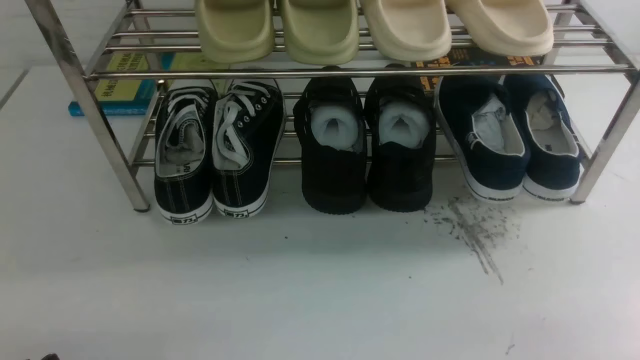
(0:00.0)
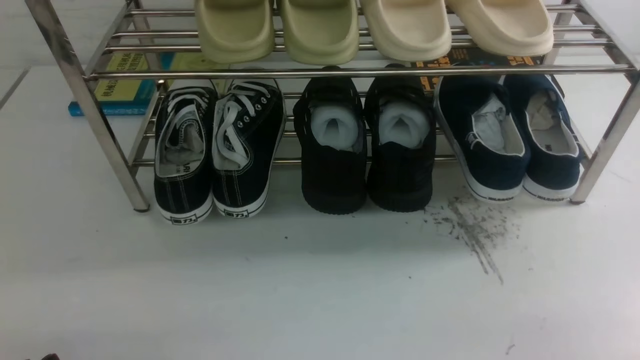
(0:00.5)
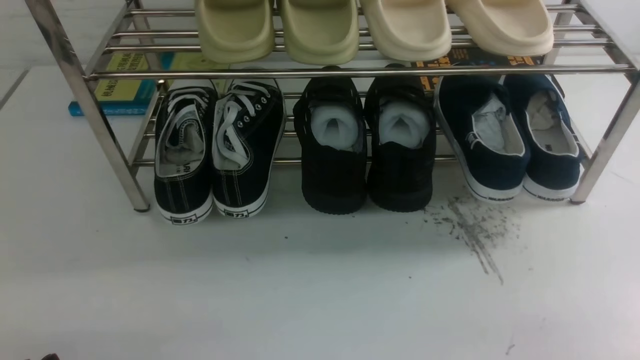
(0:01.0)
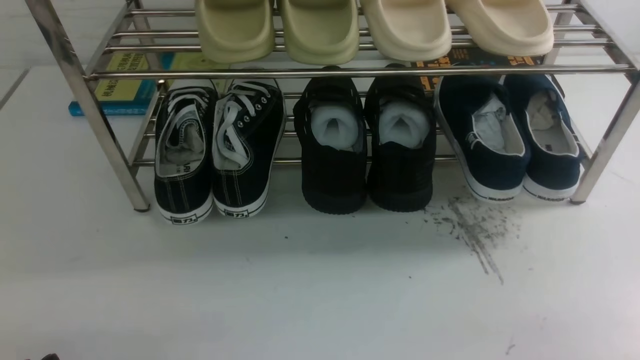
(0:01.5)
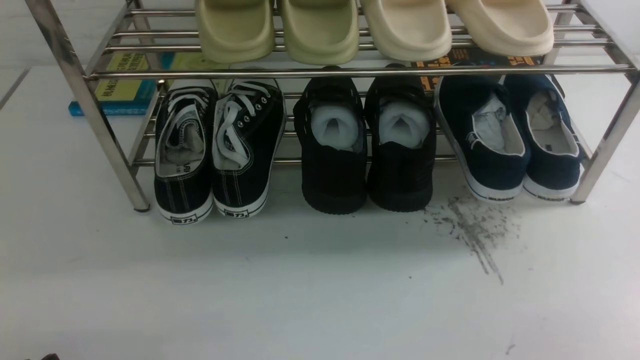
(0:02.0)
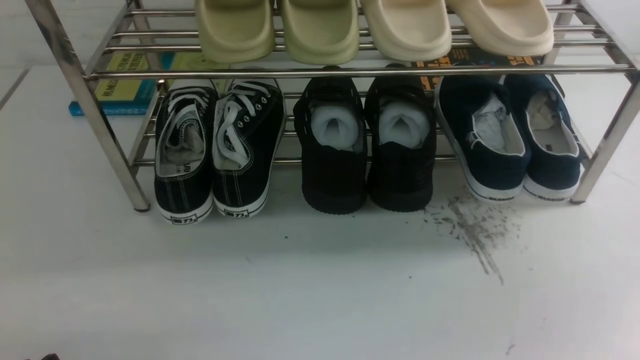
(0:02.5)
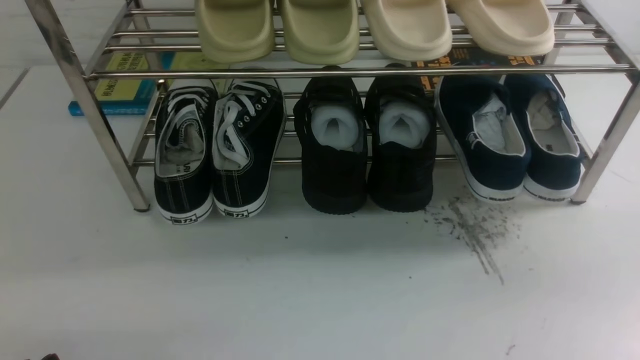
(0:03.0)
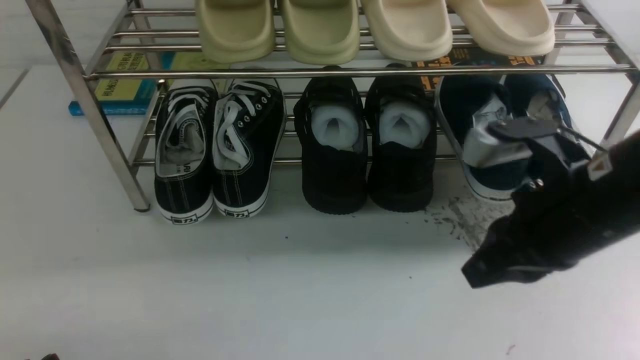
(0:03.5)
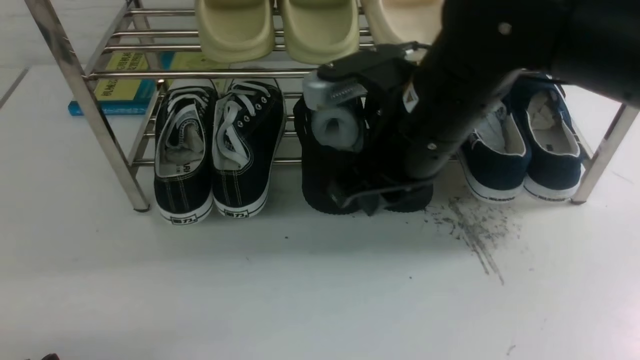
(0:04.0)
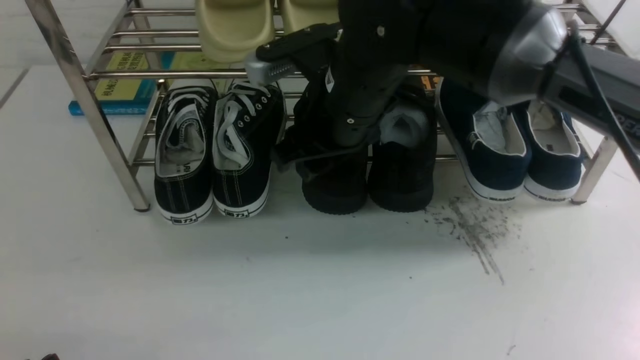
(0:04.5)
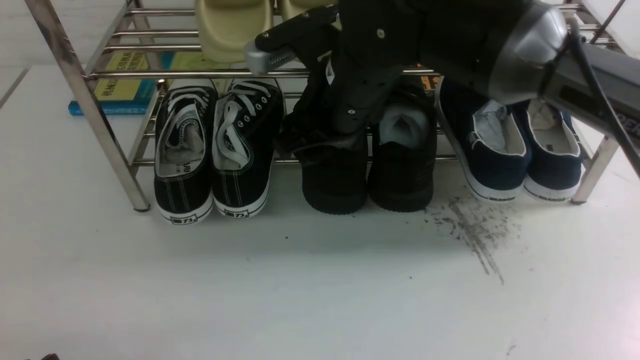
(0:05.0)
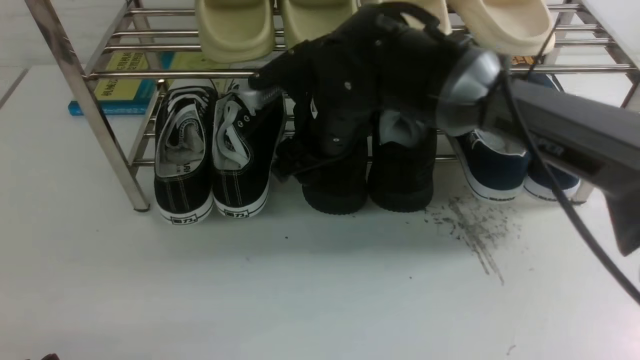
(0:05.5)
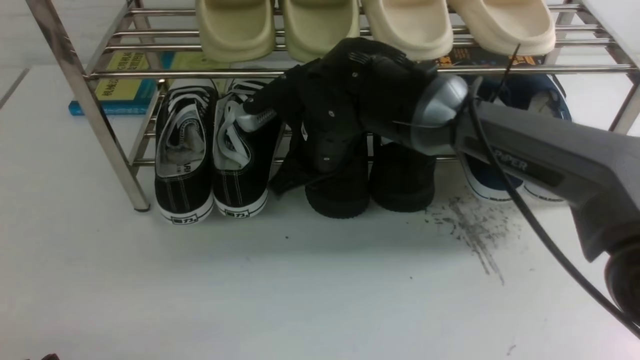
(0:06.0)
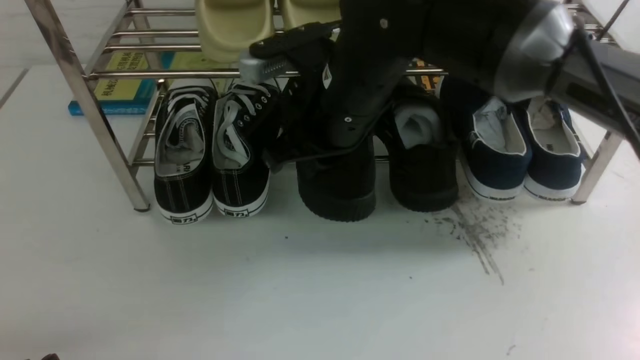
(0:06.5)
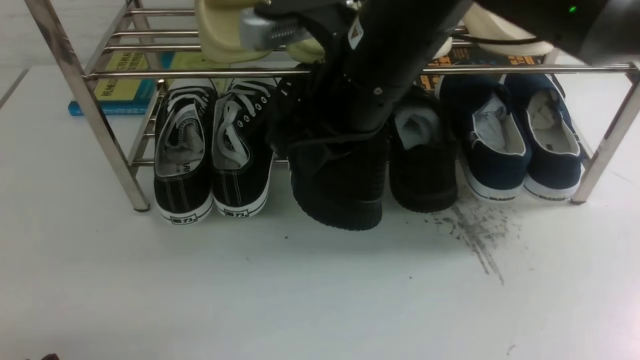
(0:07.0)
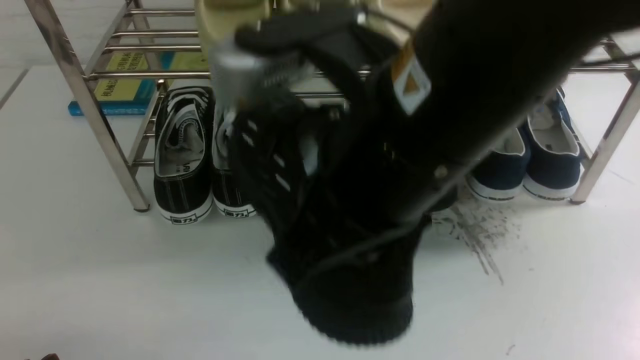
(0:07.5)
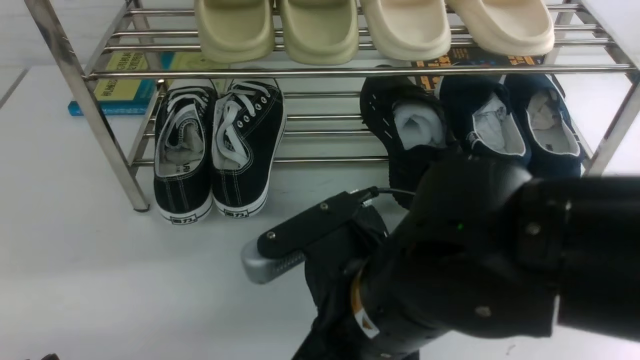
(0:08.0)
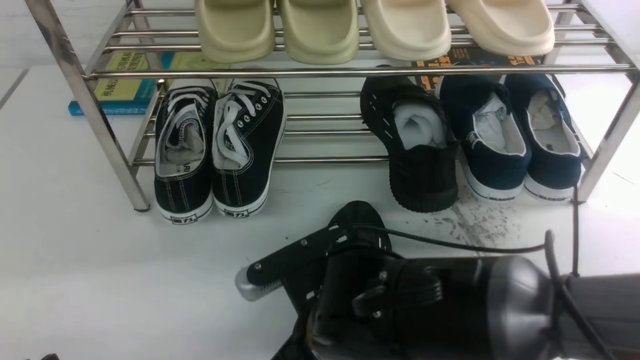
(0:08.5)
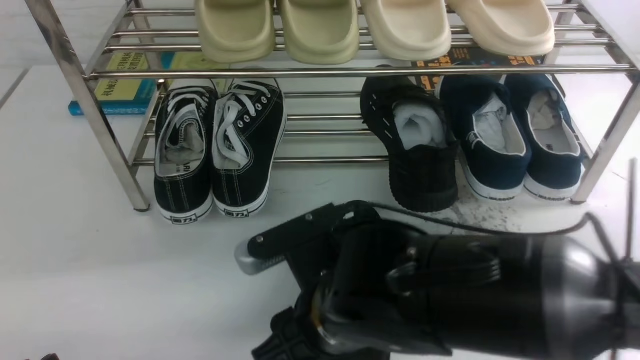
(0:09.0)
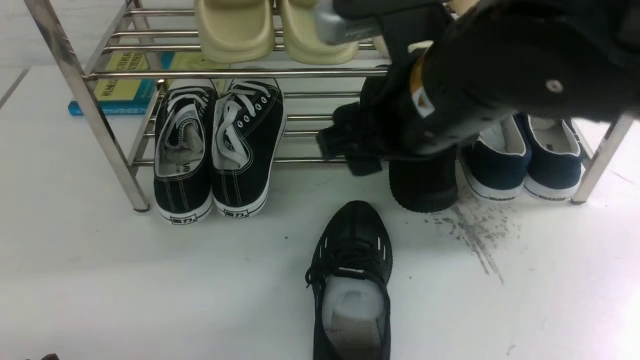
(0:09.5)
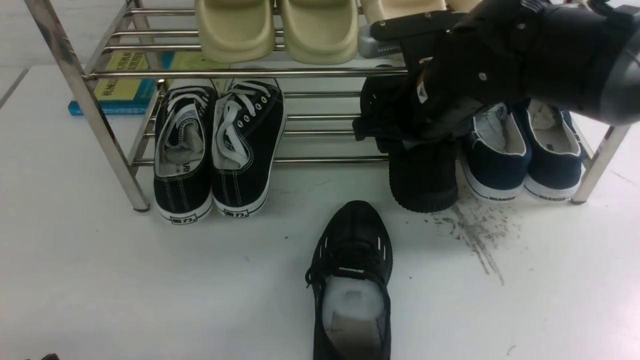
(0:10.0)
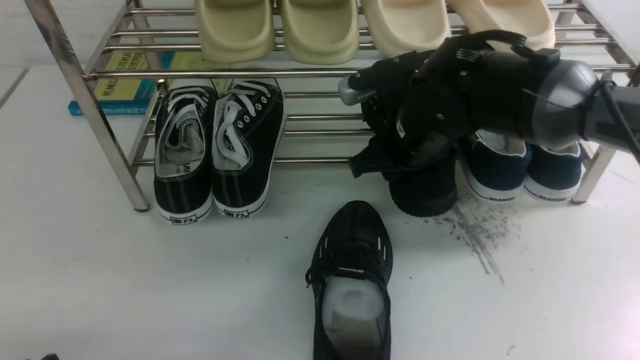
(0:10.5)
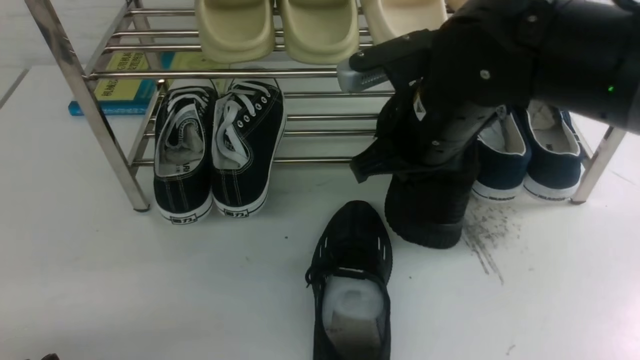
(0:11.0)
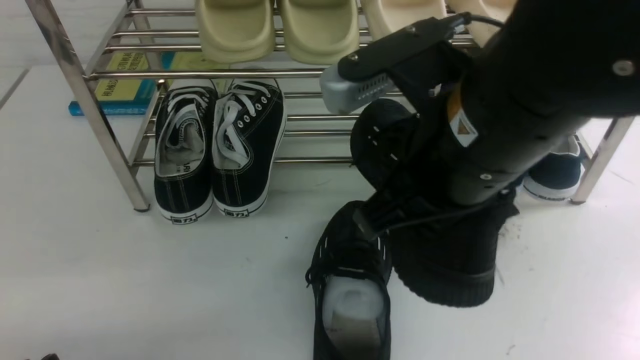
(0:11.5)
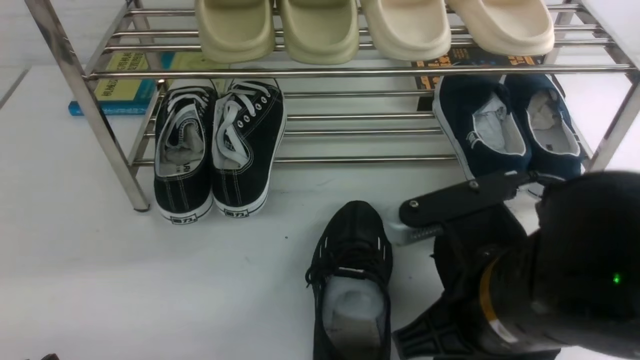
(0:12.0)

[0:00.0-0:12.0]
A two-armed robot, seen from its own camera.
Step, 0:00.0 to 0:06.0: use the right arm to clamp a shoe in the middle of the shoe rack.
Step, 0:06.5 to 0:09.0: use the right arm to take out the clamped shoe from the shoe rack and put it down.
Step, 0:09.5 to 0:11.0: use the right arm to clamp a shoe in the middle of the shoe rack.
0:02.0 to 0:04.0: The right gripper travels to the left, forward and upward by roughly 35 cm.
0:04.0 to 0:06.0: The right gripper goes some 15 cm forward, downward and to the left, and opens and closes again.
0:06.0 to 0:08.0: The right gripper shifts some 20 cm backward.
0:08.0 to 0:10.0: The right gripper is displaced forward by roughly 20 cm, and opens up.
0:10.0 to 0:12.0: The right gripper travels backward by some 20 cm, and closes up.

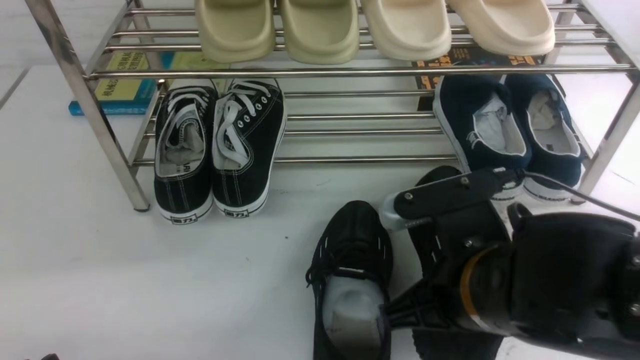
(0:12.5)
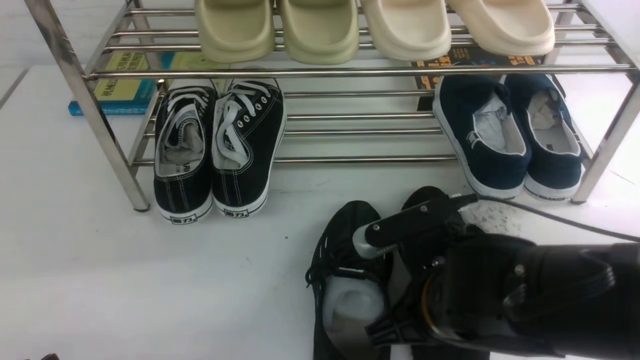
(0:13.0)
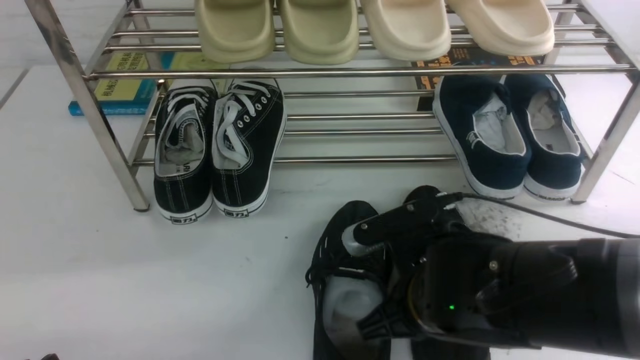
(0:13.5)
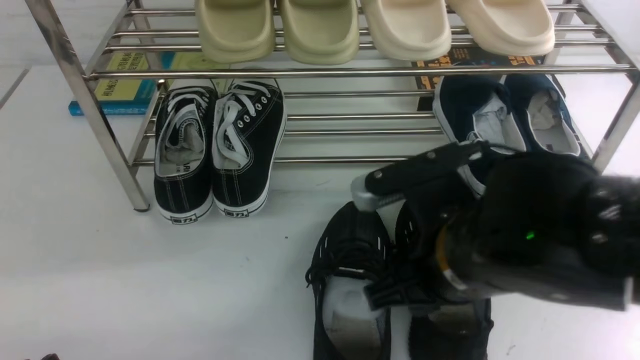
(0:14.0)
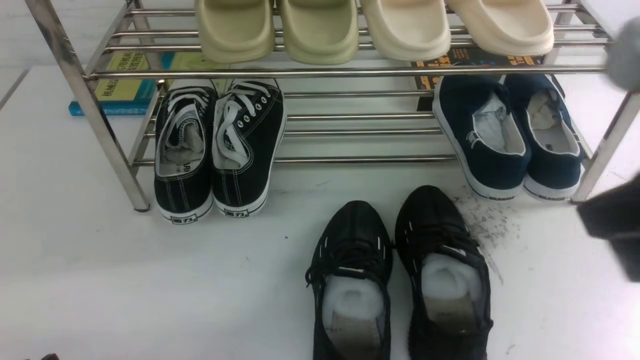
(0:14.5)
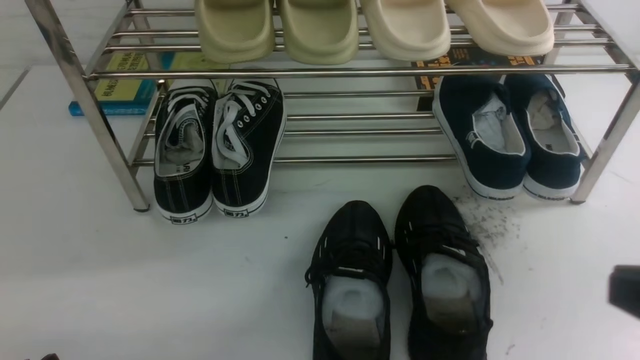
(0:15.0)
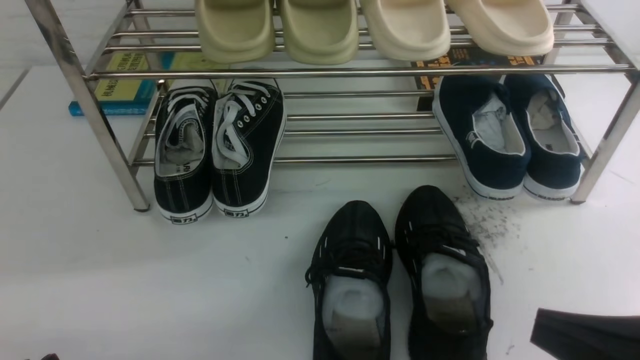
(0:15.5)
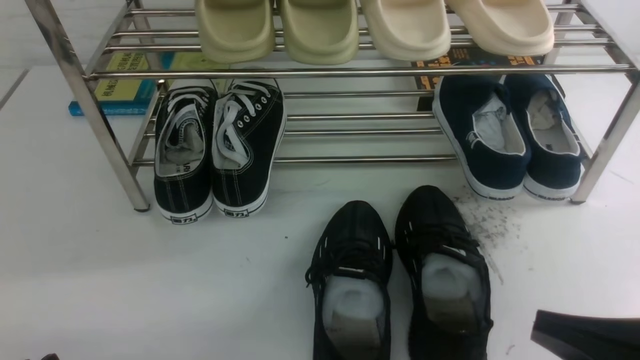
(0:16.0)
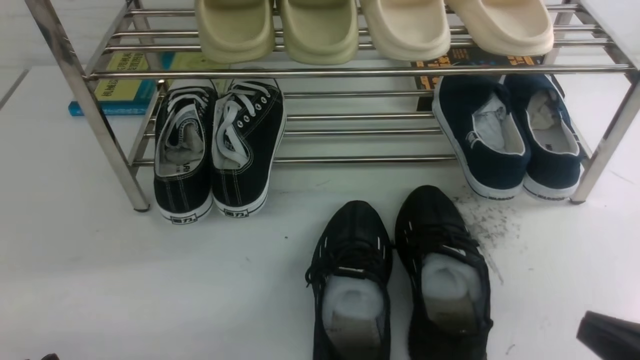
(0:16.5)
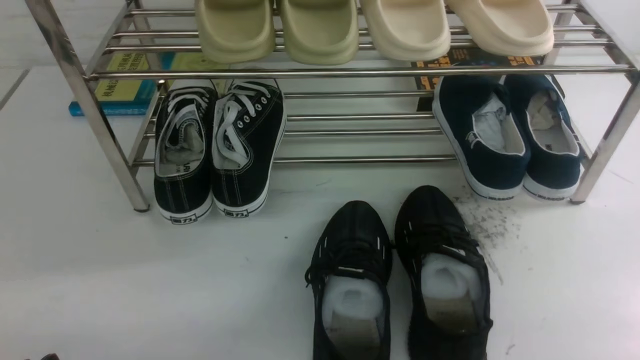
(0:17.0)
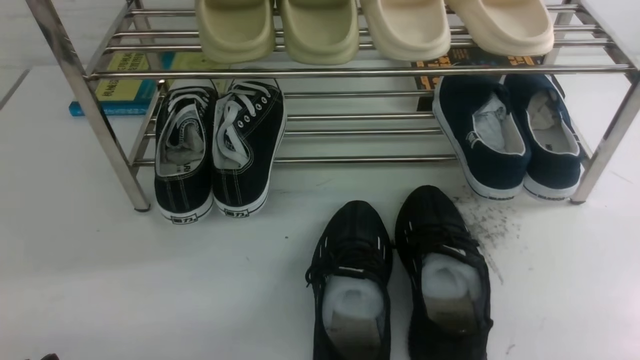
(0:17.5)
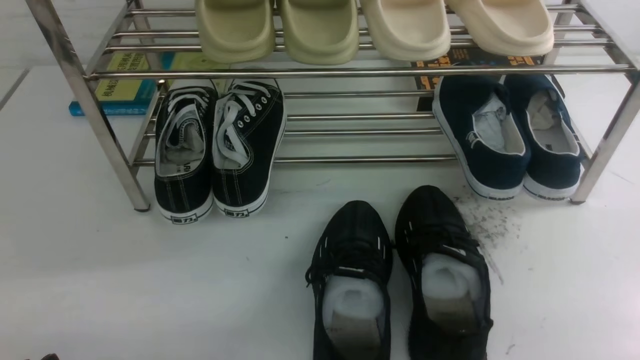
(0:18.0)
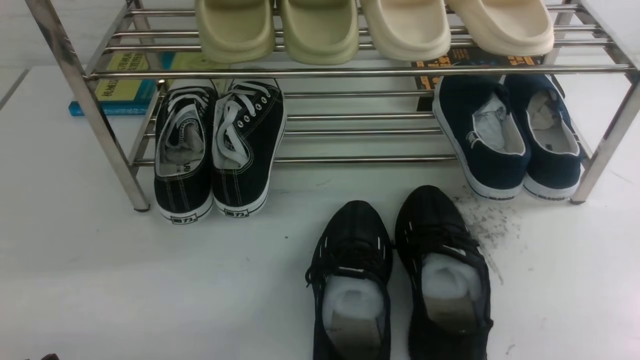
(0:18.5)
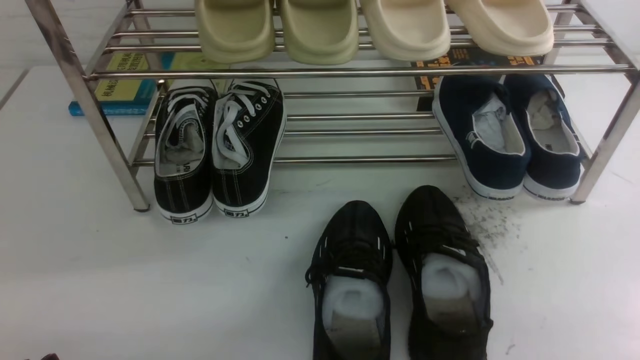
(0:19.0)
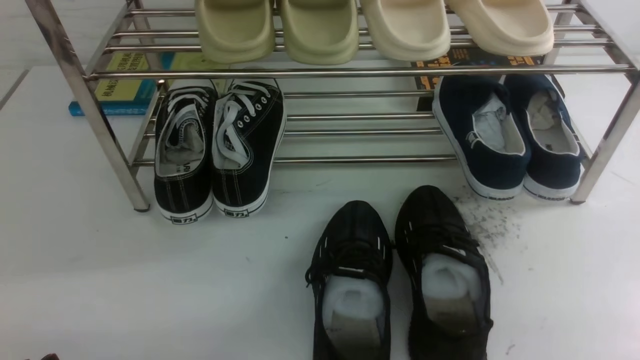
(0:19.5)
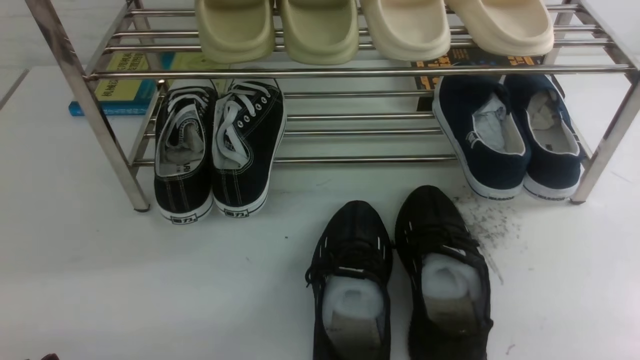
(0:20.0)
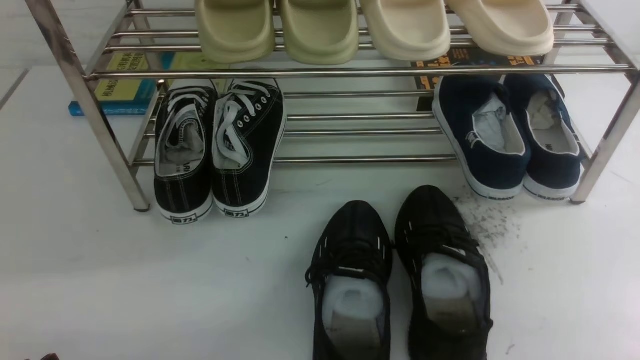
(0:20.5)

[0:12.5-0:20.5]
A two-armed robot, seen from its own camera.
Step, 0:12.5 to 0:14.0: use the right arm to take out the clamped shoe from the shoe rack and put it down.
0:12.5 to 0:14.5: The right gripper travels upward and to the right by about 20 cm, and opens and closes again.
0:14.5 to 0:16.5: The right gripper moves downward and to the right, approximately 20 cm.
0:16.5 to 0:18.5: The right gripper moves downward, approximately 5 cm.
0:18.5 to 0:20.5: The two grippers keep their place.
